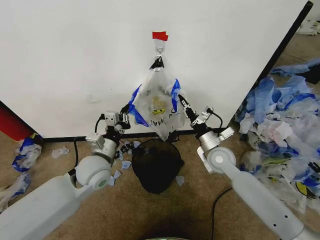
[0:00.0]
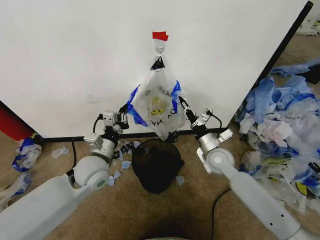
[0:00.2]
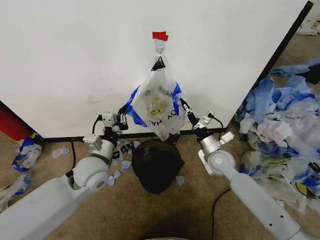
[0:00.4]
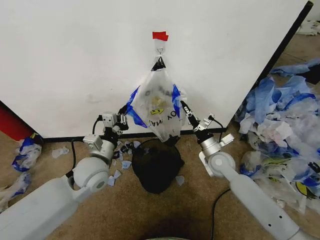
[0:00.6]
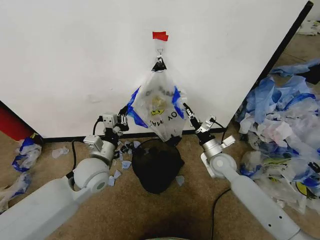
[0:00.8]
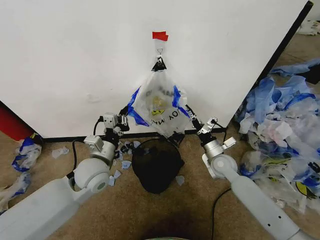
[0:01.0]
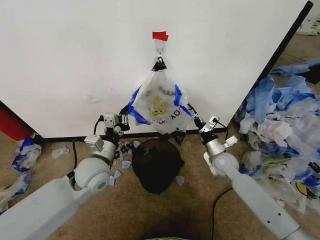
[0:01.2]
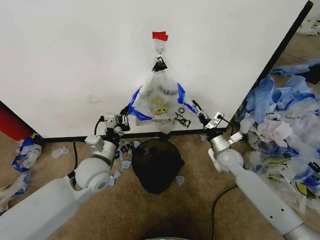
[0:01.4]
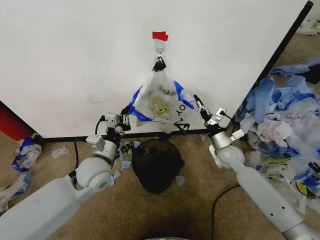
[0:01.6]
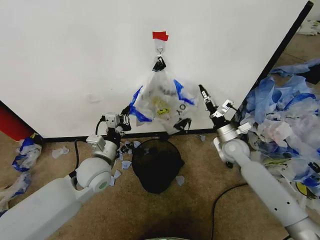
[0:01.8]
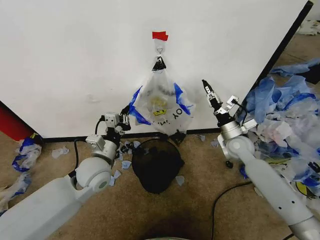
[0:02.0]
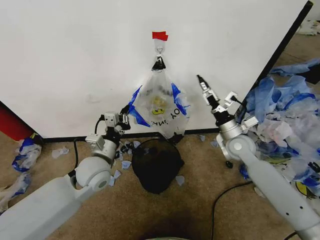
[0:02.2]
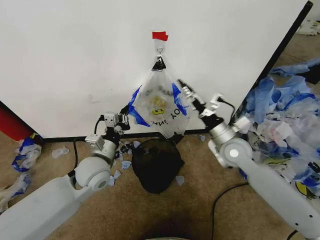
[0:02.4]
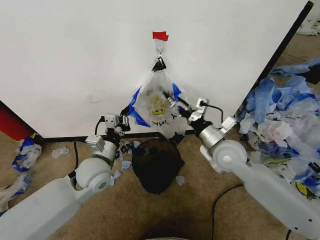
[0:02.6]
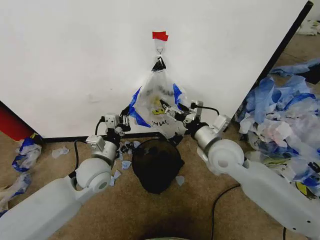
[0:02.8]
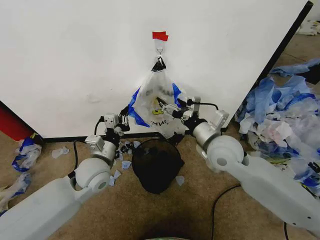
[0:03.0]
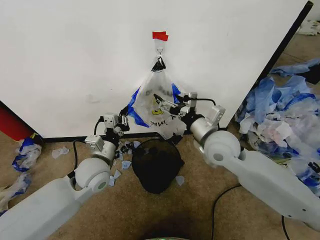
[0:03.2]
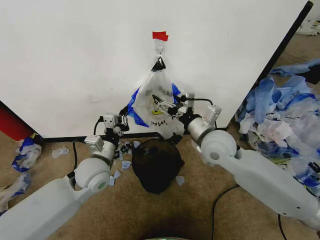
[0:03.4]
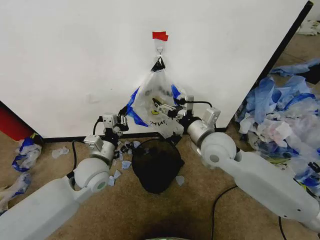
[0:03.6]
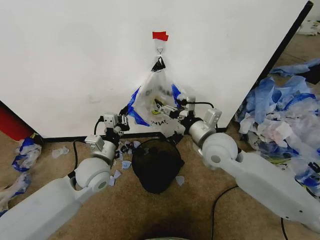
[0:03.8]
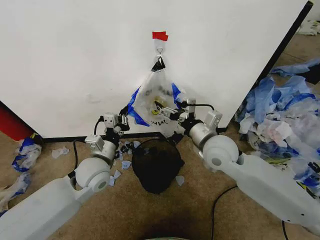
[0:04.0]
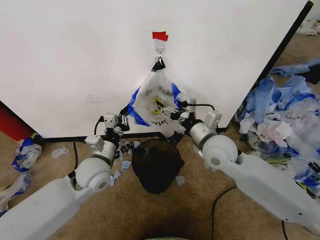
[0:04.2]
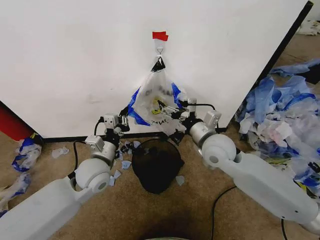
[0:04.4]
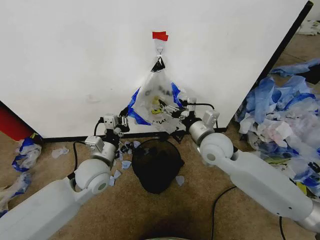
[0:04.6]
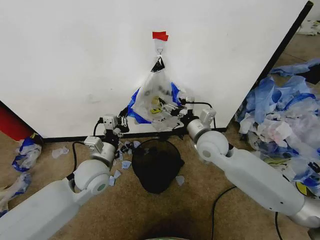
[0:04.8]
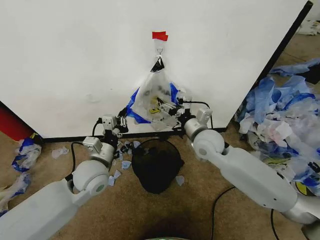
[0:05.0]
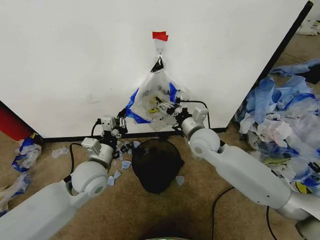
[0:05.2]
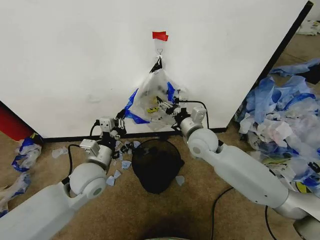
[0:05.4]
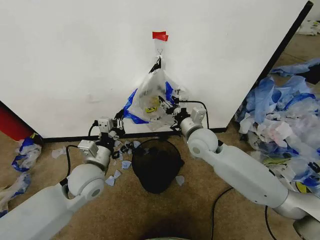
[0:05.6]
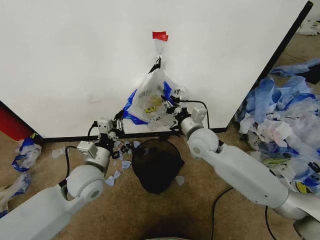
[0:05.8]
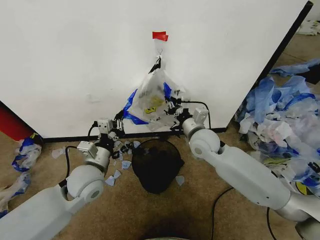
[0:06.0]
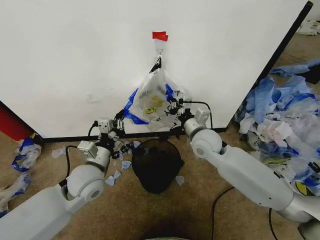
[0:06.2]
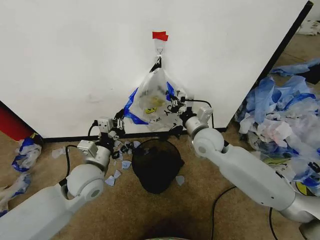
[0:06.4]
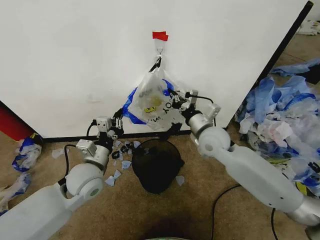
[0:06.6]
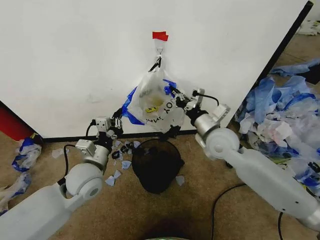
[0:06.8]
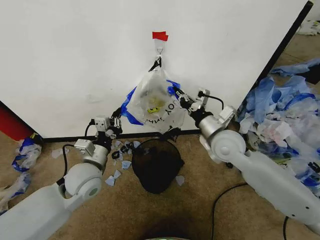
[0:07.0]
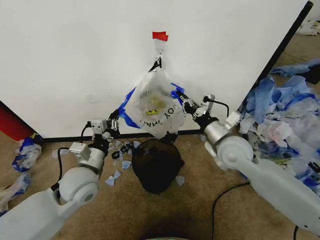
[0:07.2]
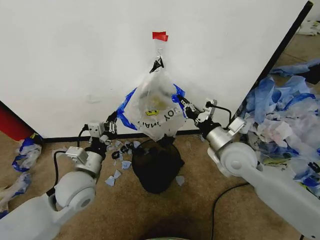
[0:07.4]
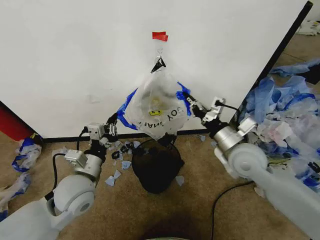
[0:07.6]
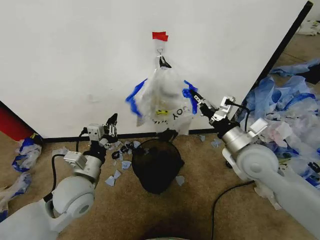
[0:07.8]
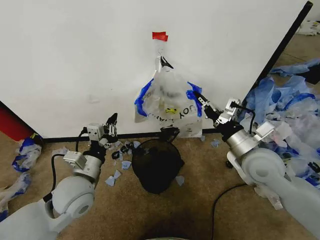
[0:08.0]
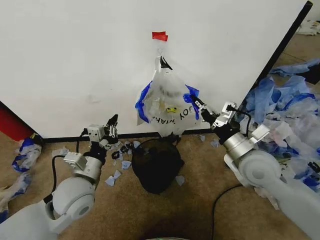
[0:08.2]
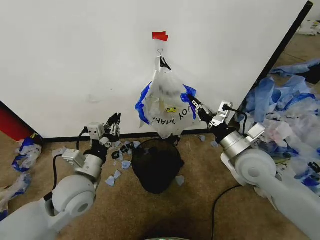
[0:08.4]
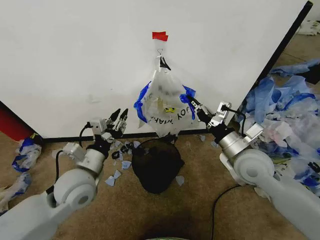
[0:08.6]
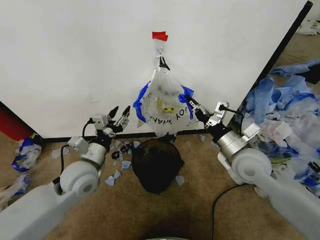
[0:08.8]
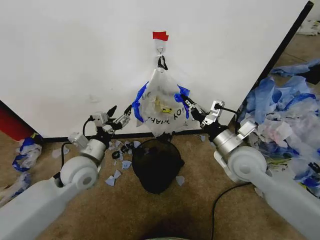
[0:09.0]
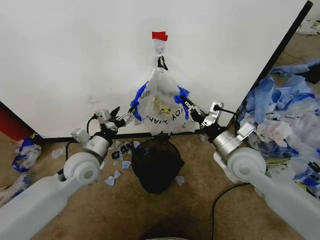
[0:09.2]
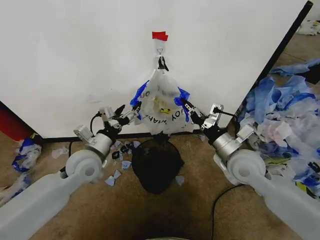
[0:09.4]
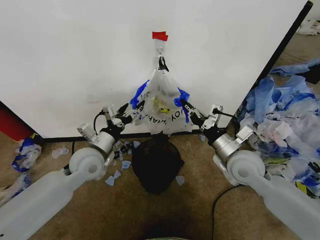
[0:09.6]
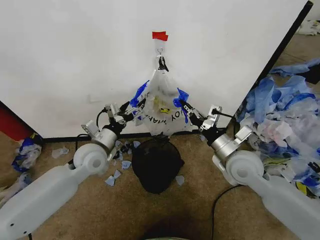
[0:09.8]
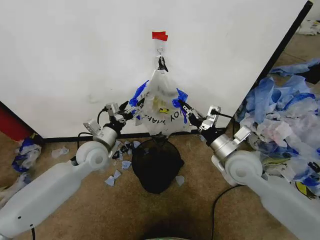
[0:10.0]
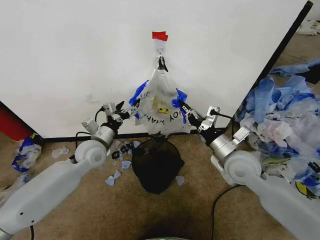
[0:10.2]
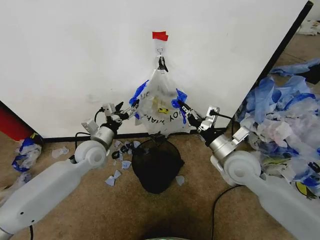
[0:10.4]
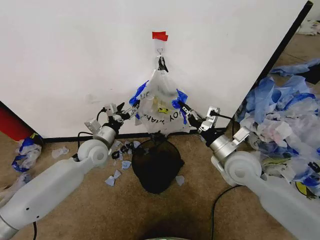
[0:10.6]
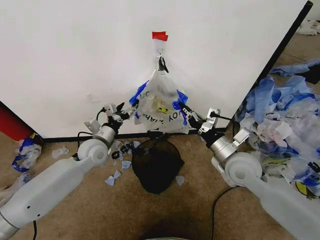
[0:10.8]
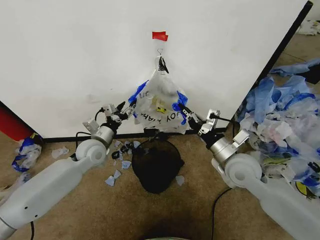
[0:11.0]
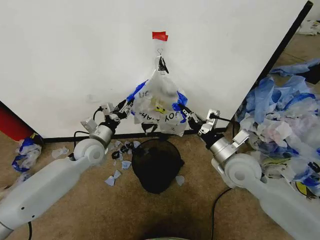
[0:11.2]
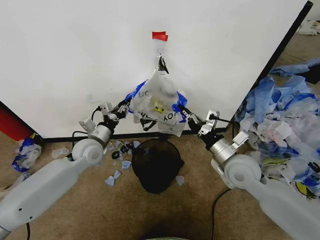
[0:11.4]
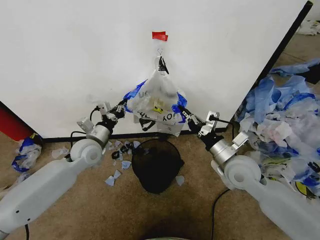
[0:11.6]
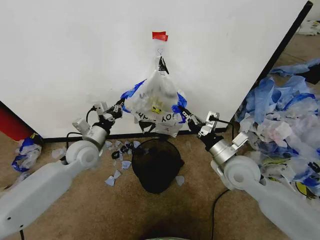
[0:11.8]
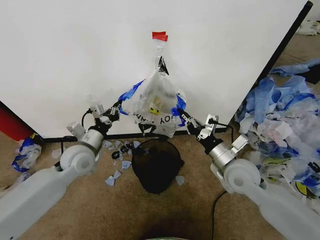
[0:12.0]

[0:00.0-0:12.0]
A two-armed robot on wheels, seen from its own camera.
Task of the whole recording: Pick up the garbage bag from the wall and place it over the trash bin.
0:00.0 to 0:01.6: The right gripper goes approximately 5 cm to the right.
0:01.6 to 0:03.0: The right gripper shifts roughly 20 cm upward, to the left and backward, and opens up.
0:03.0 to 0:04.4: There are only small adjustments of the grippers.
0:04.4 to 0:06.0: The right gripper ends up approximately 5 cm from where it was, and closes.
0:06.0 to 0:07.6: The right gripper is displaced to the right and backward by approximately 15 cm.
0:07.6 to 0:09.0: The left gripper goes roughly 5 cm forward, and opens its fingers.
0:09.0 to 0:10.4: The left gripper goes approximately 10 cm forward.
0:10.4 to 0:12.0: The left gripper closes its fingers.

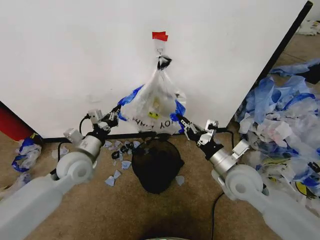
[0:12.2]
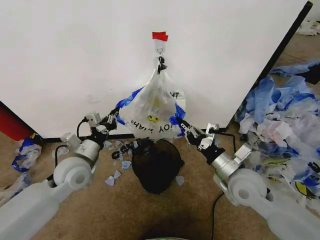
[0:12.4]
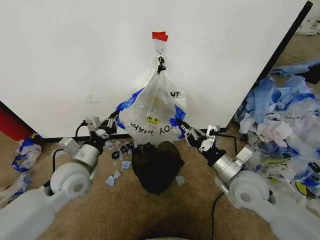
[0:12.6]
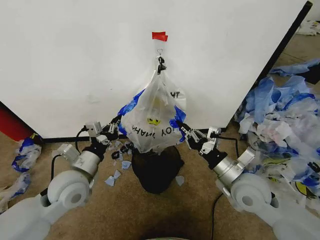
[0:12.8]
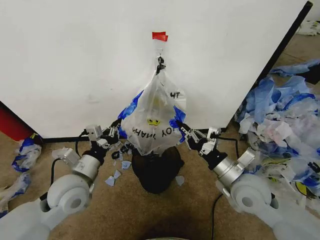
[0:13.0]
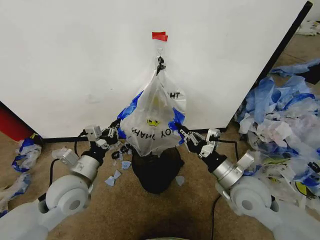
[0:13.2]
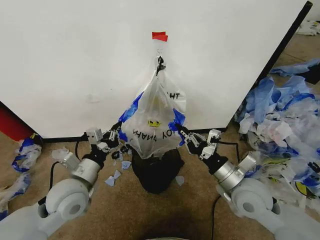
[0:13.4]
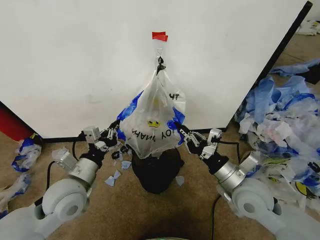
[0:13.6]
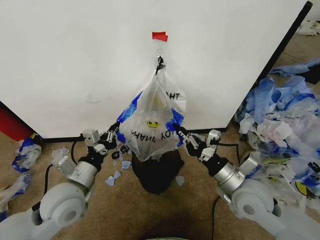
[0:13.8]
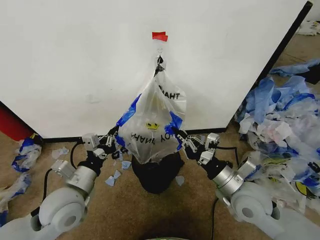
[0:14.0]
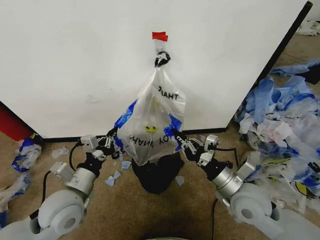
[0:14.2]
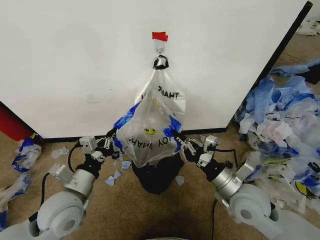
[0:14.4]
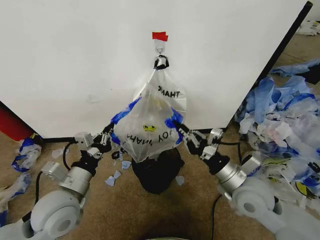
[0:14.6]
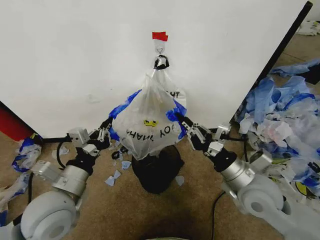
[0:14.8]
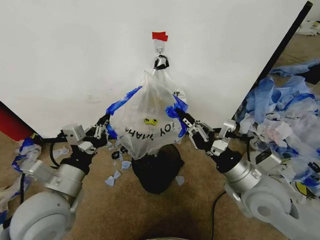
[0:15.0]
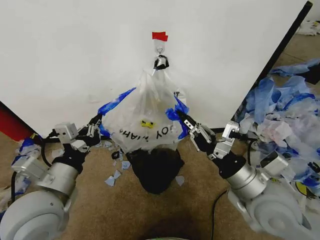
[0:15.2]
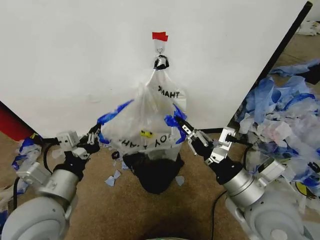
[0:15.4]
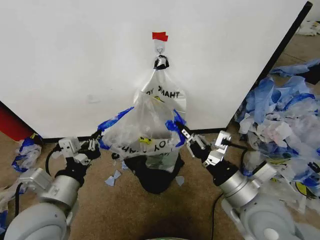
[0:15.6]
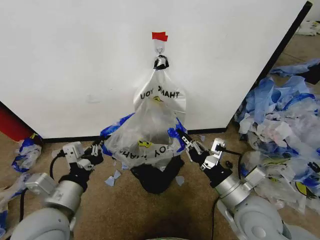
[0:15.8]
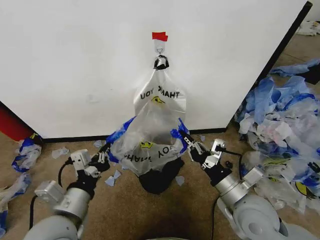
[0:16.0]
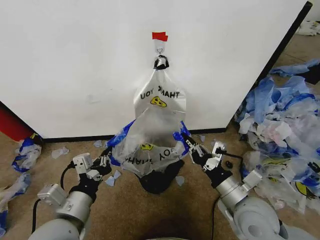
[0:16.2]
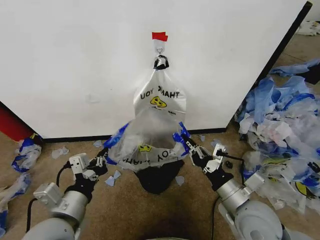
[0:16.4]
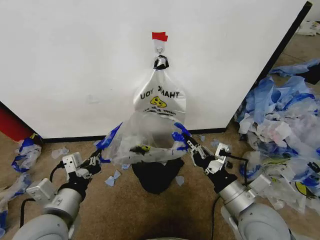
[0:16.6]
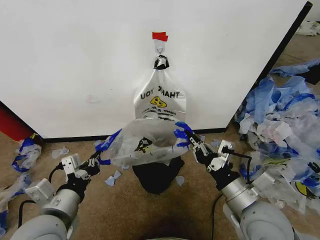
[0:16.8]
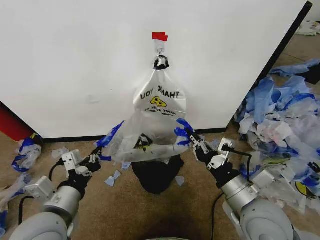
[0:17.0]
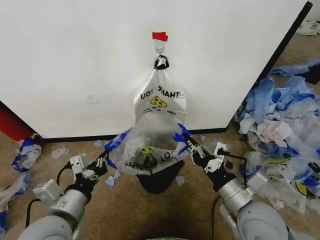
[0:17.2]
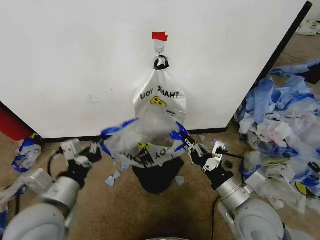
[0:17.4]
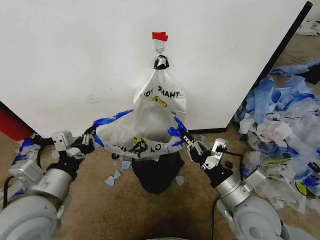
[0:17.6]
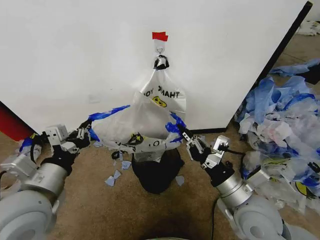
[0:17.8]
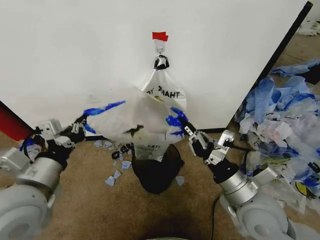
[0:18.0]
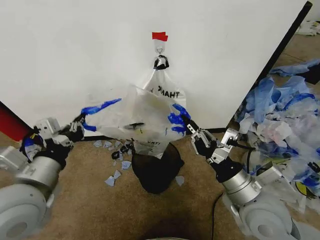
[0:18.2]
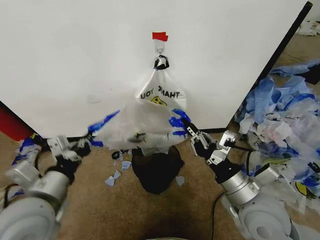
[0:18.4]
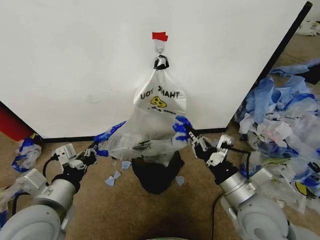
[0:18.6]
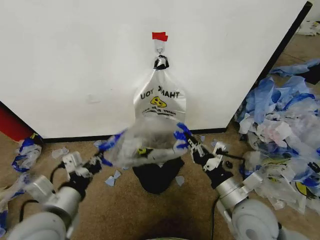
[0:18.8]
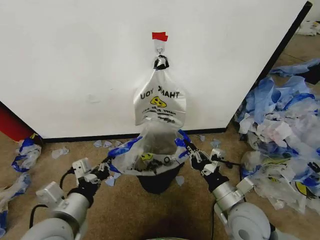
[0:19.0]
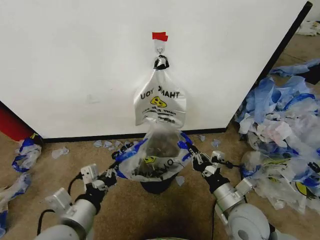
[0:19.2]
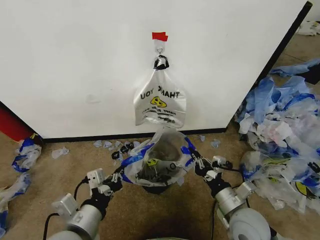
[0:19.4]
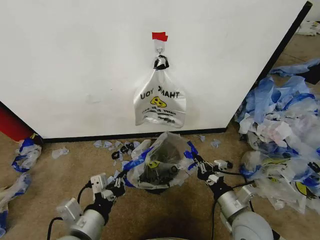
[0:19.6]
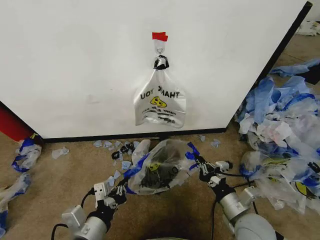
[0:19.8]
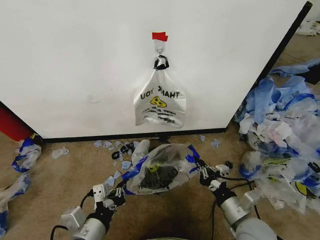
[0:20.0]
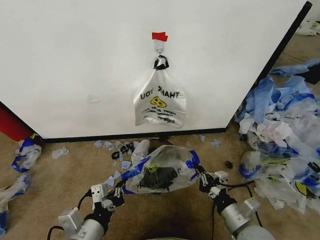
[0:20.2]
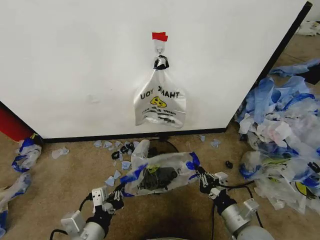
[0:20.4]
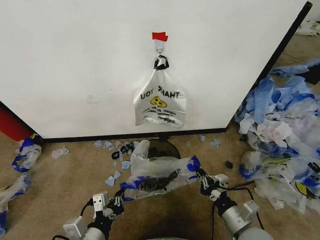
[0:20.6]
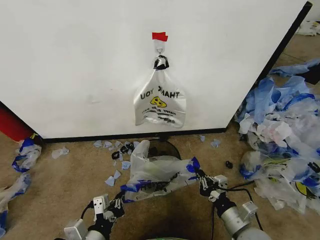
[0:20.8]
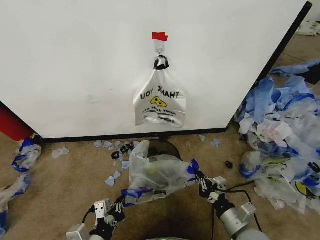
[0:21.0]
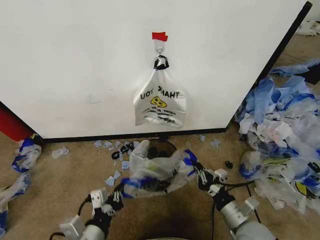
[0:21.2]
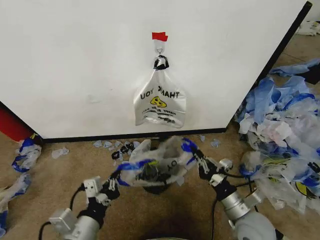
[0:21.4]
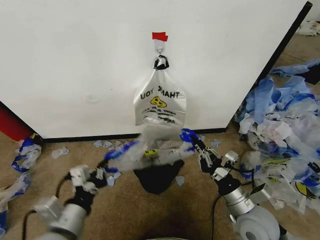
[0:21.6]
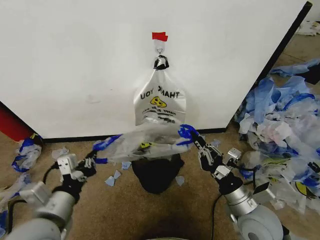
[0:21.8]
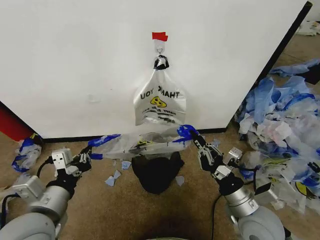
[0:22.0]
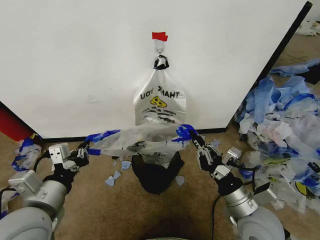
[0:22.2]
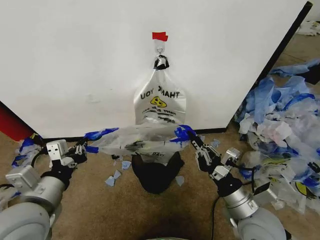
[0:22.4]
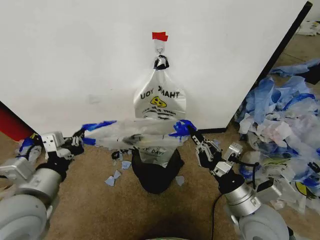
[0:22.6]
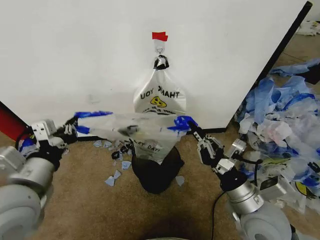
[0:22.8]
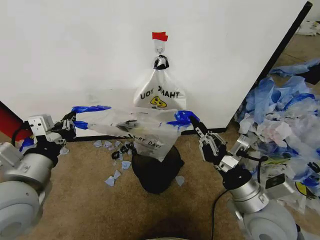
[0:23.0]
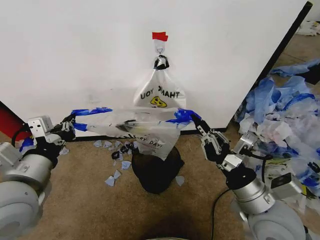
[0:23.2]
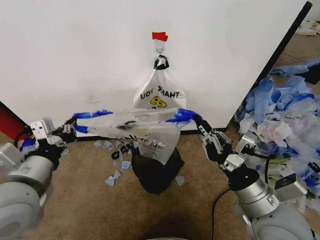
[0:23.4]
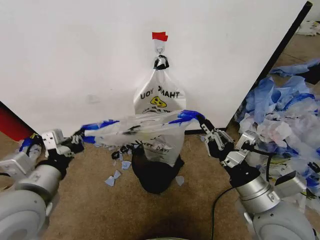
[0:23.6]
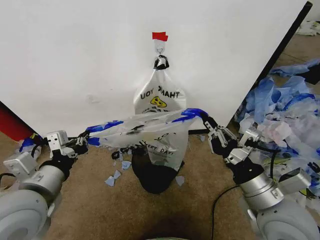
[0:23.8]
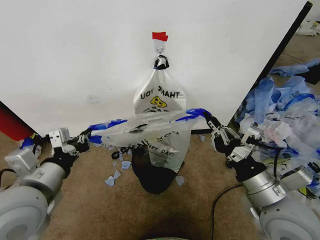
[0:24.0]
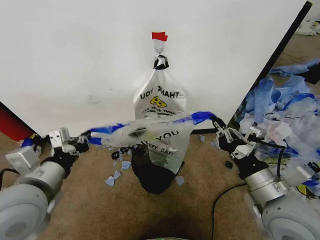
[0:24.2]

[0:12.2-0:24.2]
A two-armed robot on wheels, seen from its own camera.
Task of the whole recording: Pick up the garbage bag from the wall and place it over the trash bin.
0:12.2 to 0:13.8: The left gripper shifts about 10 cm backward.
0:13.8 to 0:15.2: The left gripper moves upward and backward, some 10 cm; the right gripper is displaced upward by some 5 cm.
0:15.2 to 0:16.6: The right gripper ends up about 5 cm from where it was. Meanwhile the left gripper ends up roughly 5 cm from where it was.
0:16.6 to 0:18.2: The left gripper heads upward, covering roughly 5 cm.
0:18.2 to 0:19.8: The right gripper heads downward, covering roughly 10 cm. Meanwhile the left gripper travels downward, to the right and backward by roughly 15 cm.
0:19.8 to 0:21.2: There are only small adjustments of the grippers.
0:21.2 to 0:22.6: The right gripper heads upward, covering about 10 cm. Meanwhile the left gripper moves upward, forward and to the left, about 15 cm.
0:22.6 to 0:24.2: The right gripper is displaced upward by some 5 cm.
